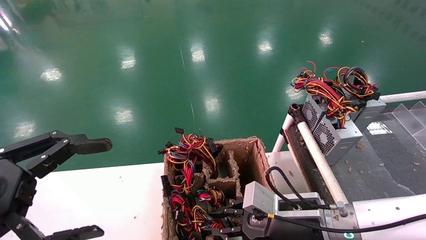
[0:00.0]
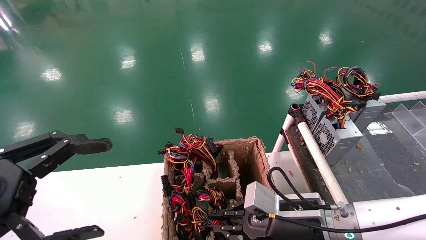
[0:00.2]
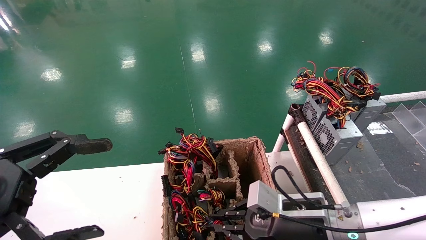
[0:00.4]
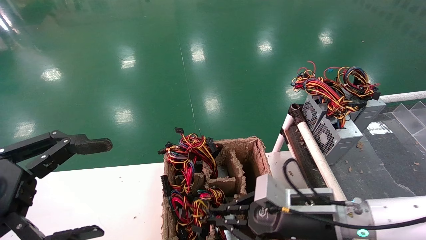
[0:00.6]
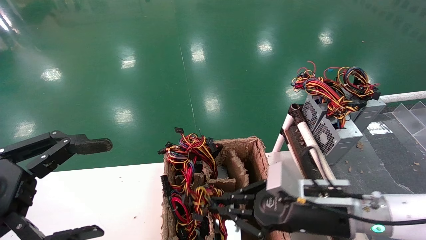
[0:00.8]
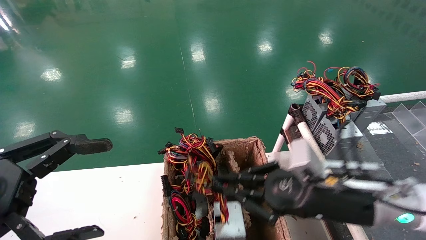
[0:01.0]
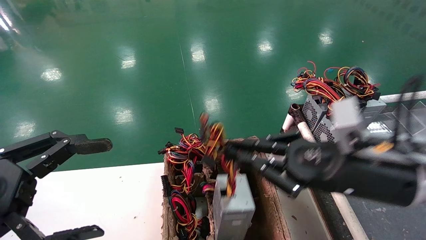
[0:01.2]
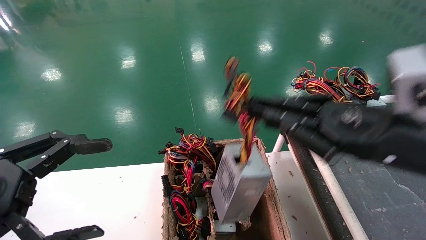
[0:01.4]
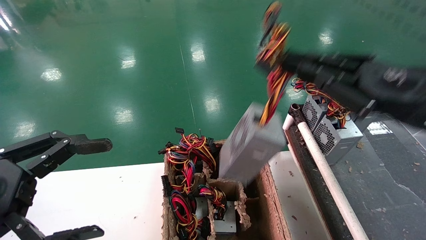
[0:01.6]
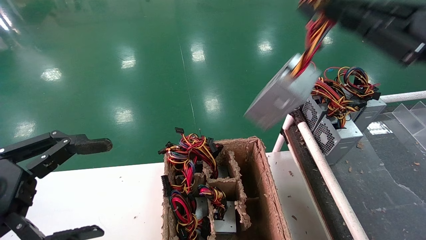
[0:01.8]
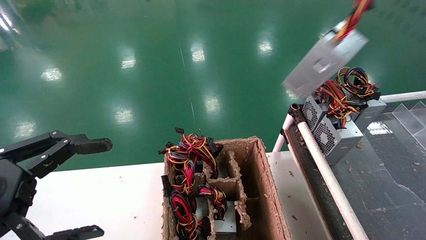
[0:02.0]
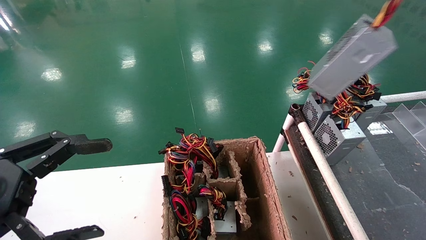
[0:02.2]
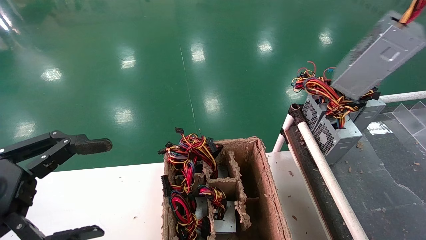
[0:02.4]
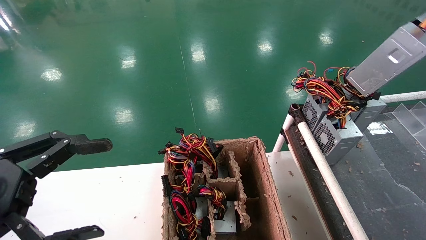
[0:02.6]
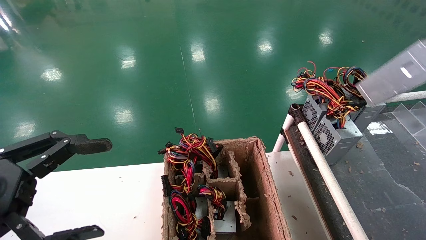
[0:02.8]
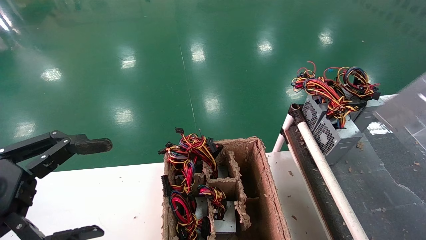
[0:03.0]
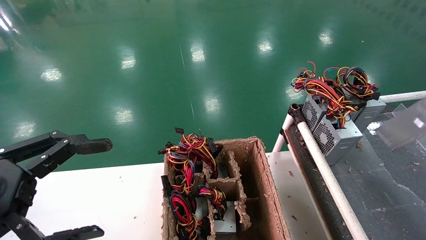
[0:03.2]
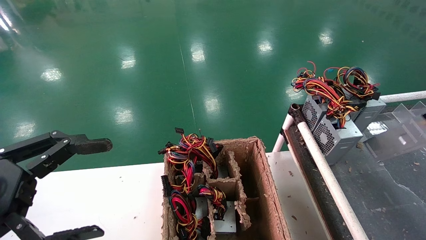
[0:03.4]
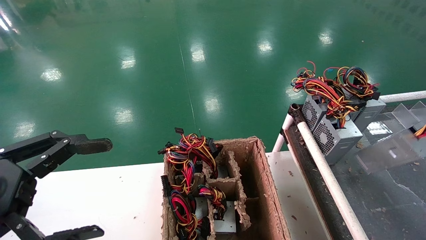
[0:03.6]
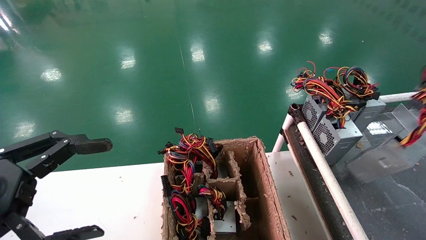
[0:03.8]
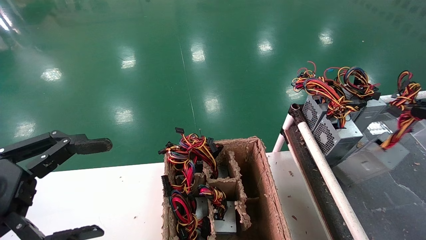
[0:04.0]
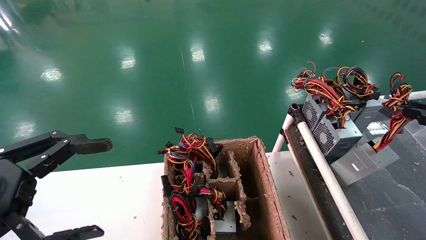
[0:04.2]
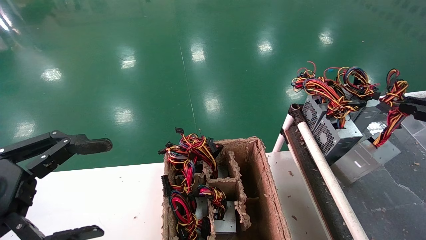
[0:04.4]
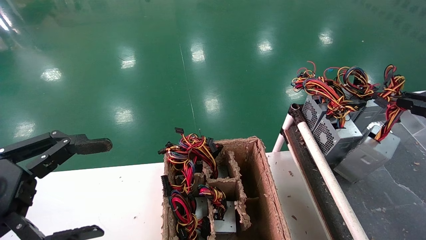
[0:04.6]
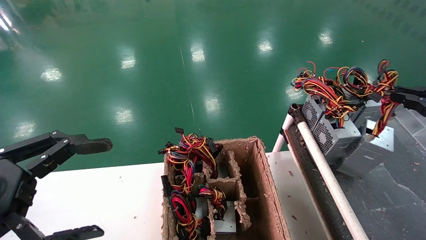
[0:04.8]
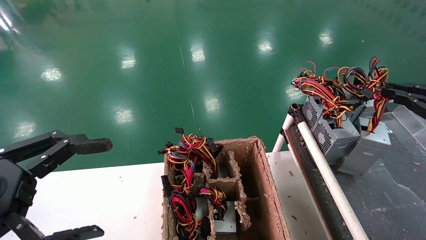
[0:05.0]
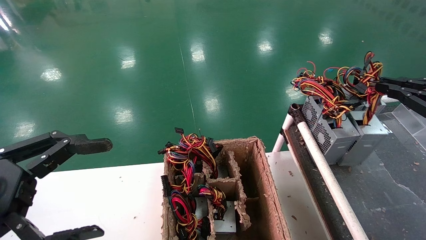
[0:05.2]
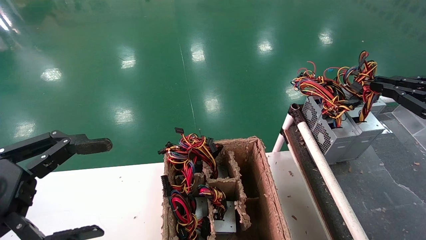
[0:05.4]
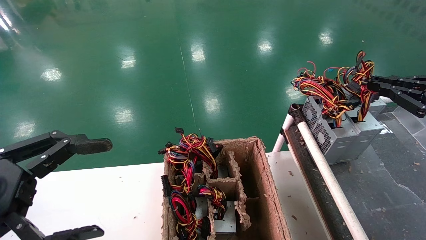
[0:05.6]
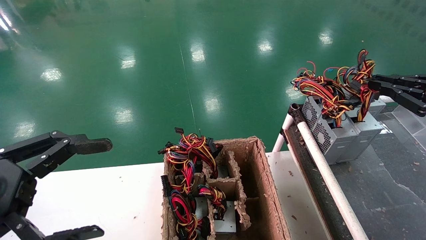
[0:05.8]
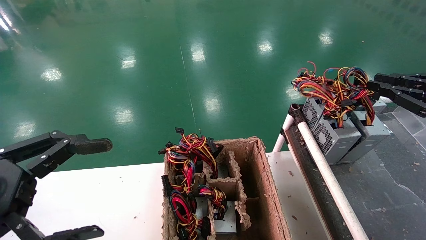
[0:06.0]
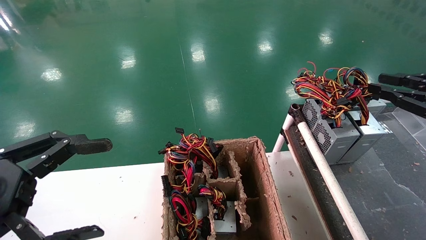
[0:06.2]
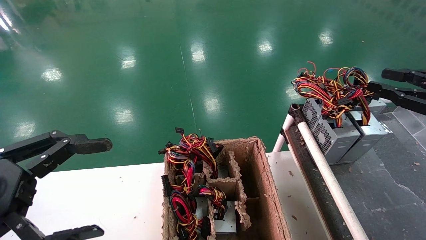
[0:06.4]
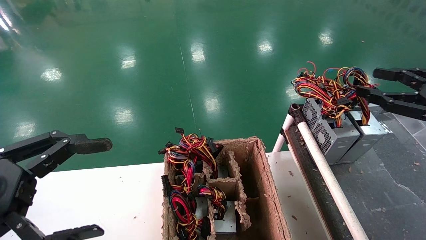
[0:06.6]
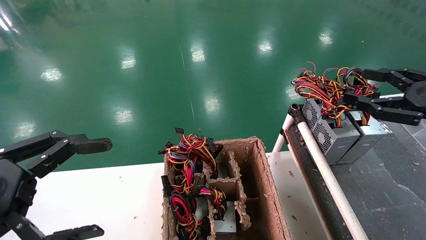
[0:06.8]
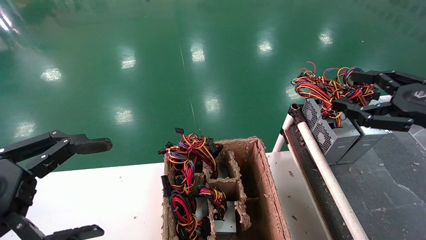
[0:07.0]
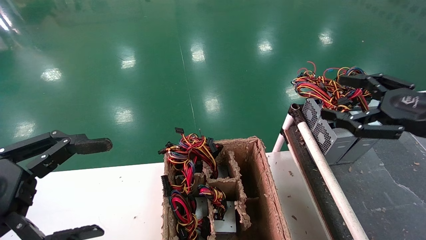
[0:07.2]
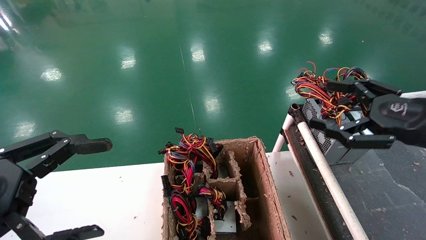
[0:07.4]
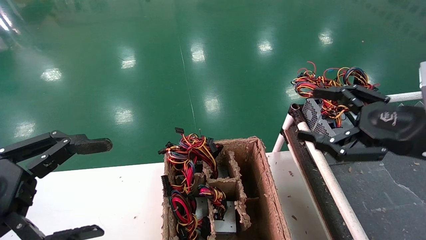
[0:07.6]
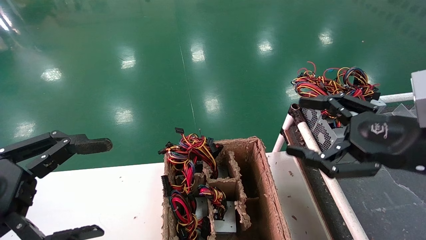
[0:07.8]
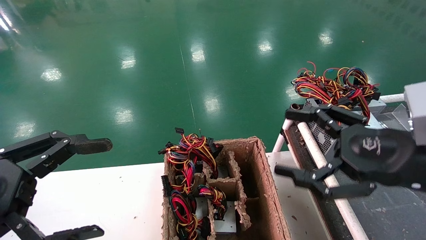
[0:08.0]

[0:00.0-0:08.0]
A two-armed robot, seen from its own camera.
Step, 0:01.4 to 0:05.0: Place the power supply on the operating table.
0:00.0 to 0:01.6: The right gripper goes roughly 25 cm upward and to the right.
0:01.6 to 0:03.2: The right gripper travels to the right by some 25 cm.
0:03.2 to 0:04.8: The right gripper shifts roughly 10 cm forward and to the left.
0:04.8 to 0:06.4: The grippers make only small movements.
0:06.4 to 0:08.0: The right gripper shifts approximately 15 cm to the left, and opens up.
